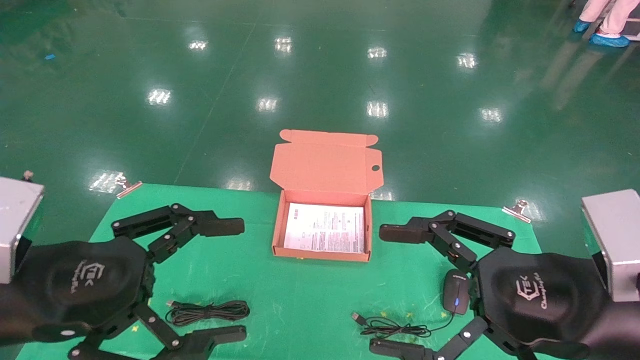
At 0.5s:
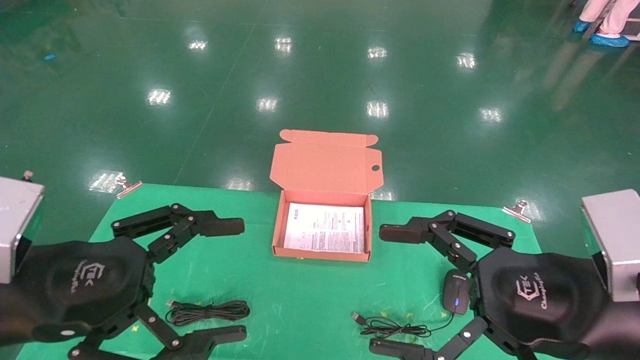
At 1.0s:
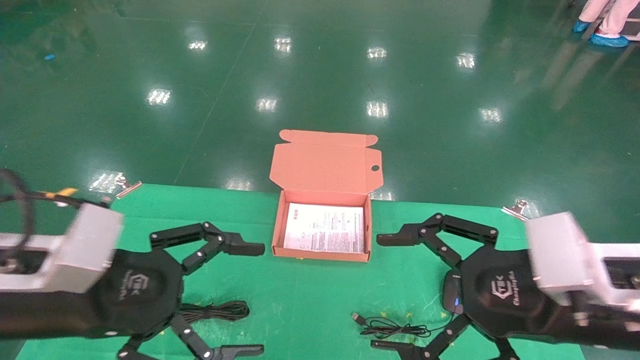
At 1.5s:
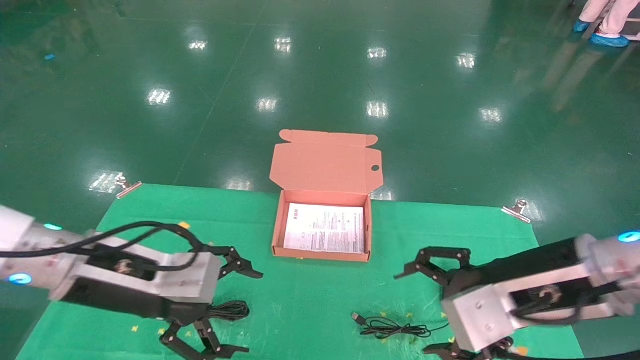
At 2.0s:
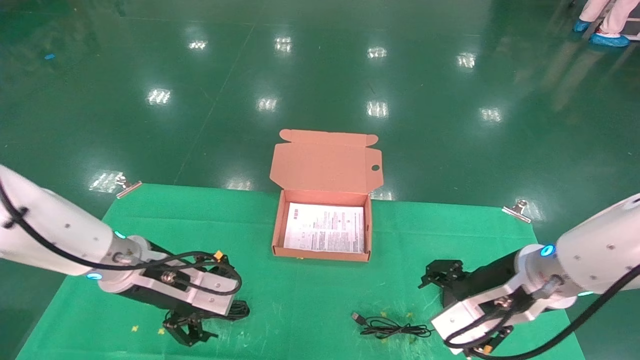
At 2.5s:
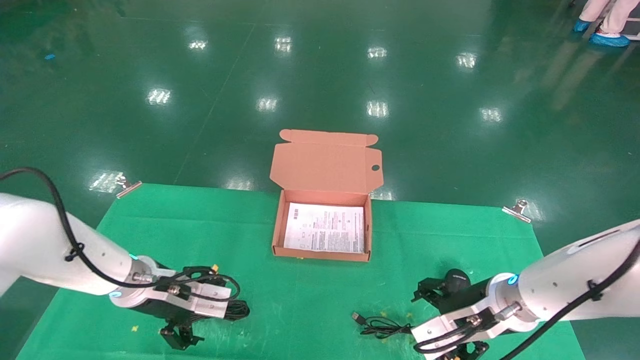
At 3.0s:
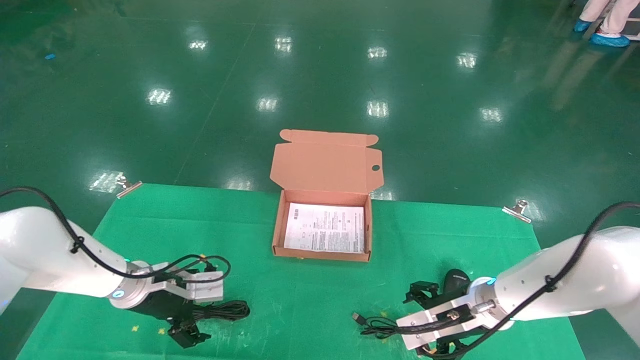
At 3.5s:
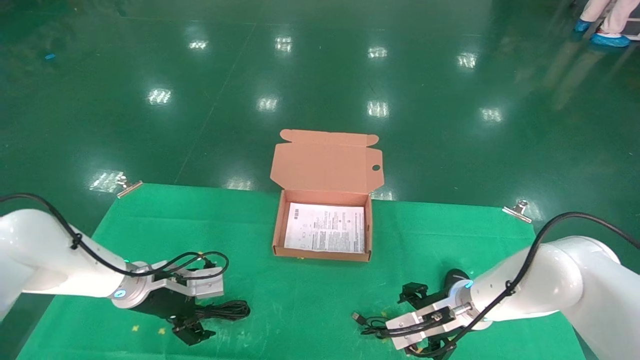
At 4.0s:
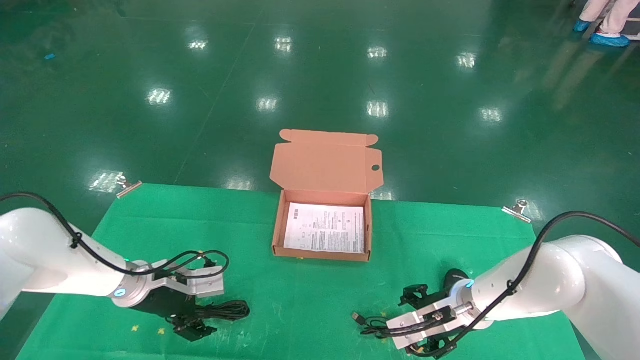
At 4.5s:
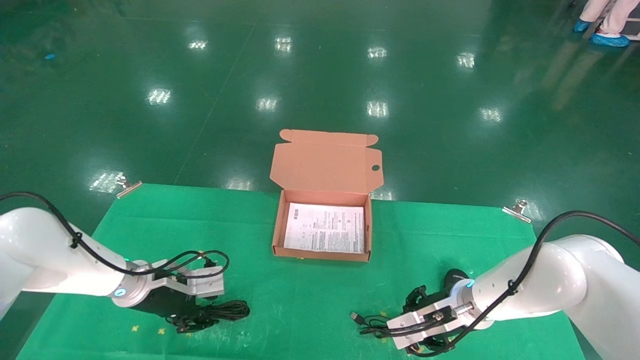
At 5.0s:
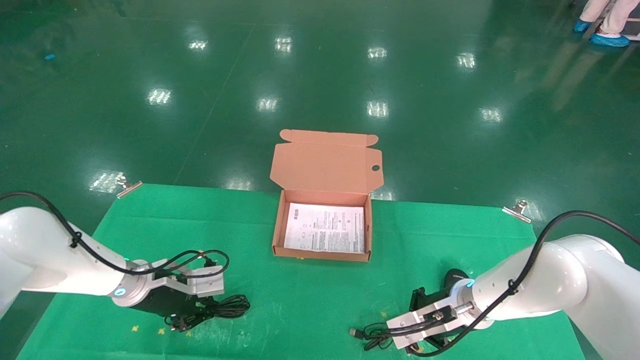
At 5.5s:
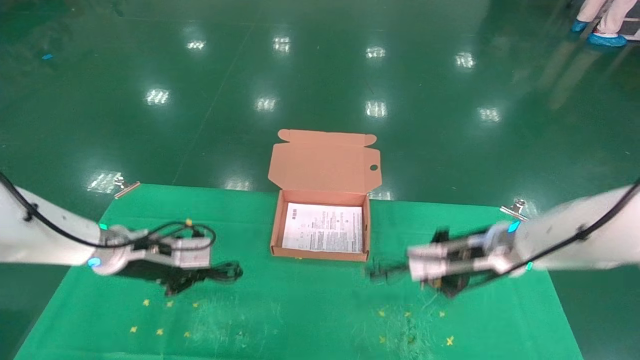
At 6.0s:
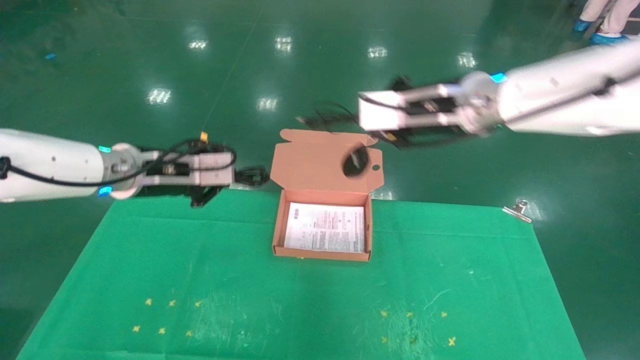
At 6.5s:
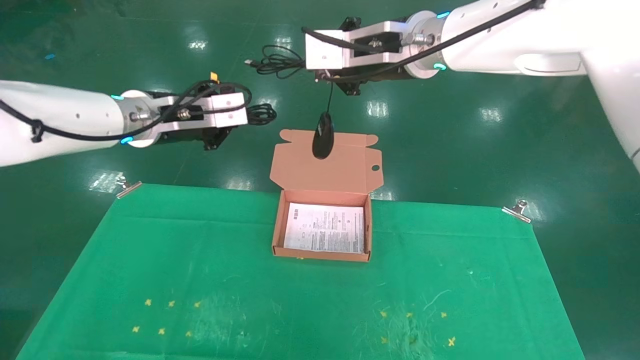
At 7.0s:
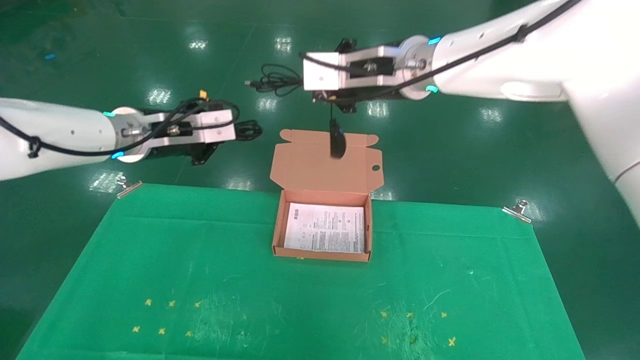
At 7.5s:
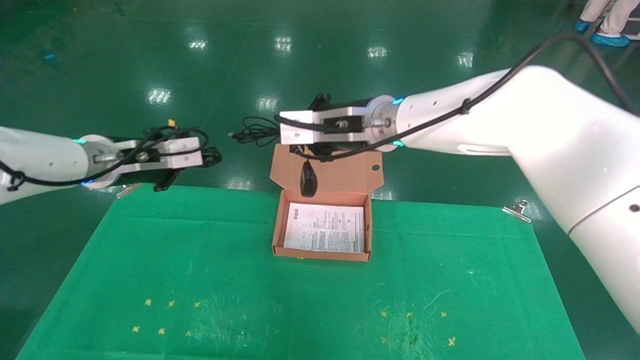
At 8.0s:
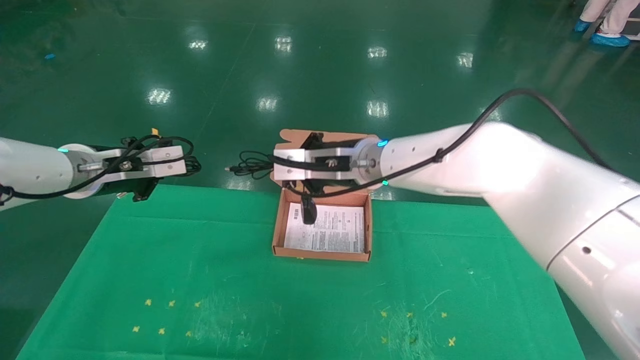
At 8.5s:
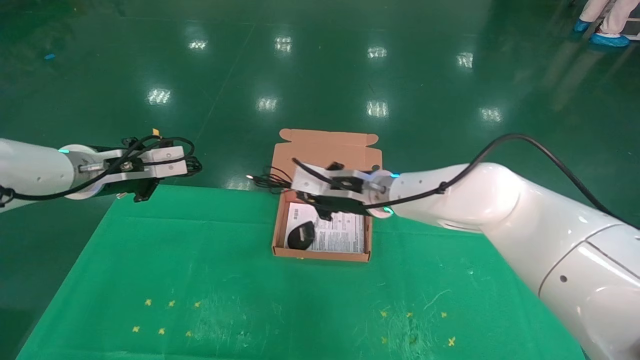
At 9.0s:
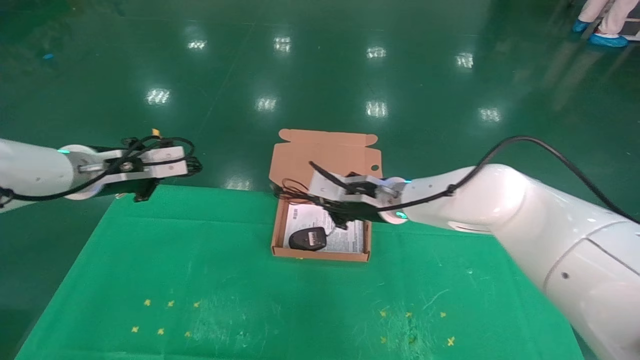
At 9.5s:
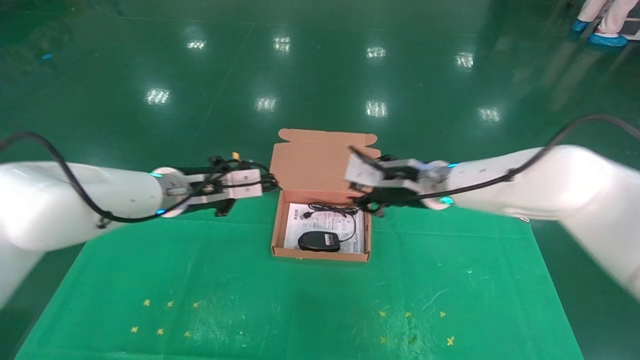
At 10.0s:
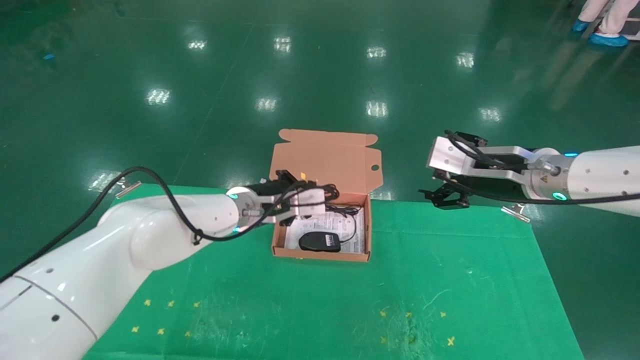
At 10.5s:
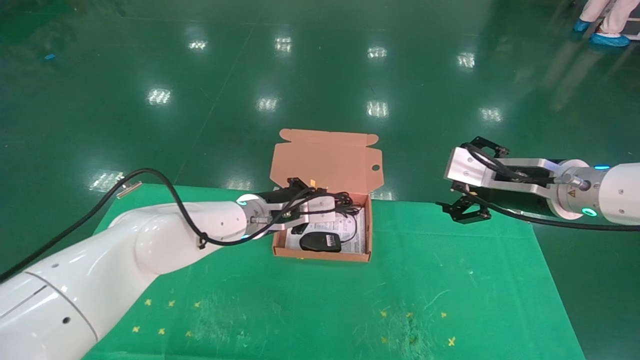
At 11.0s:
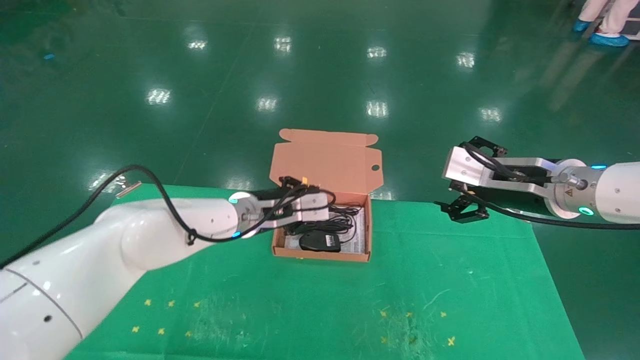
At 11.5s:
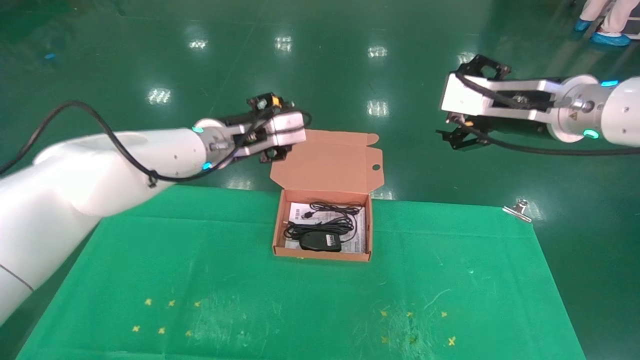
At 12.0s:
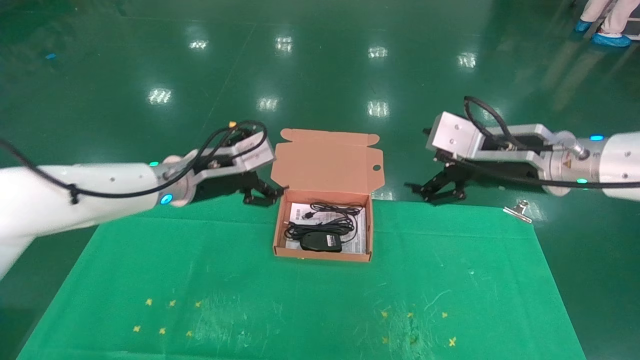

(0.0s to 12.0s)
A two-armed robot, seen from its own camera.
Task of the whole recording: grasp data cable left put into box grasp mouse right put into box.
Step, 1.0s - 5.0s: Grab and pick up both the mouse and power cord from the accessory packaging area at the same time.
Step, 5.5s - 10.5s: Place the mouse and power cord into the box.
0.0s - 2.0s: The two grippers go some 15 cm forward and downward.
2.0s - 4.0s: The right gripper is displaced downward and forward by some 15 cm; the left gripper shifts roughly 15 cm downward, forward and to the left.
4.0s - 6.0s: Both grippers travel together upward, some 25 cm. The right gripper closes, while the left gripper closes.
6.0s - 8.0s: The right gripper is displaced to the left and downward by about 15 cm. The left gripper travels to the left by some 5 cm.
8.0s - 10.0s: The right gripper shifts some 20 cm to the right, and opens its fingers; the left gripper heads to the right and downward, covering about 20 cm.
10.0s - 12.0s: The left gripper travels to the left and upward by approximately 10 cm, and opens up.

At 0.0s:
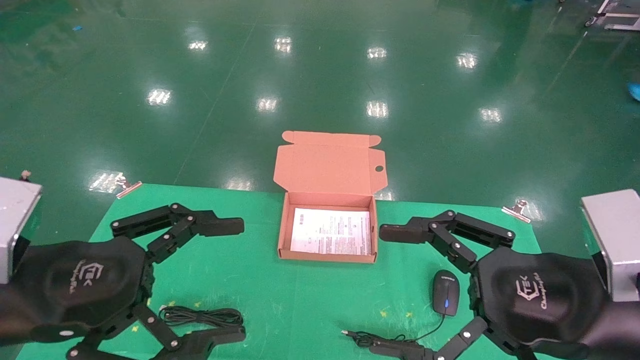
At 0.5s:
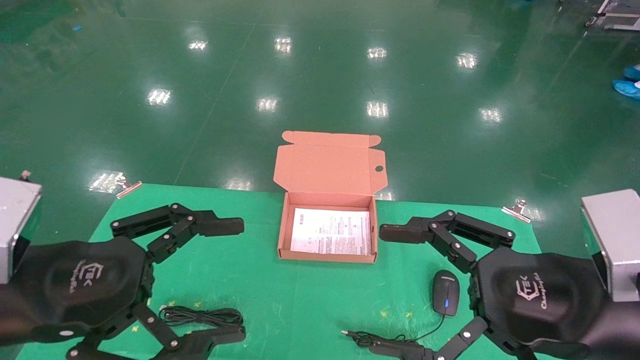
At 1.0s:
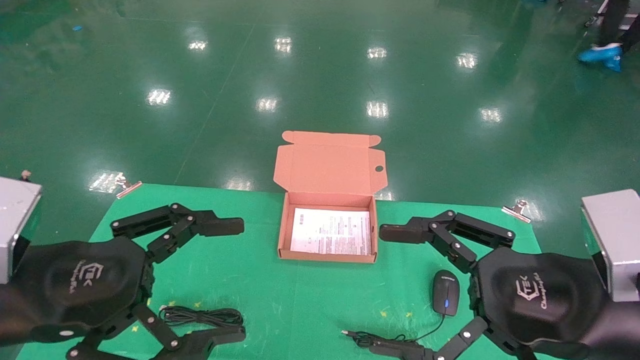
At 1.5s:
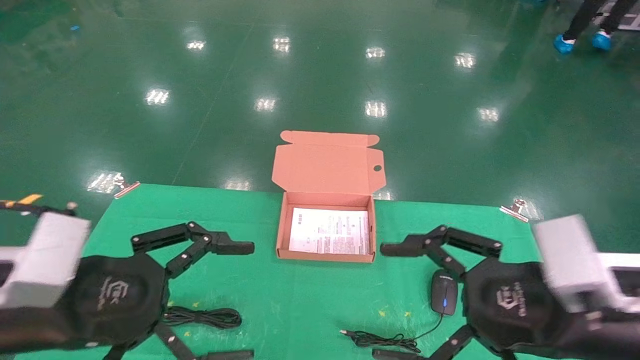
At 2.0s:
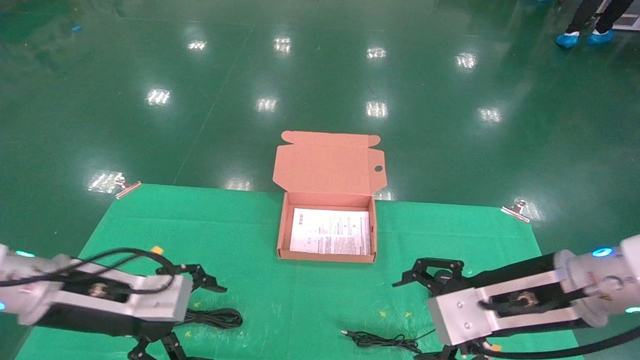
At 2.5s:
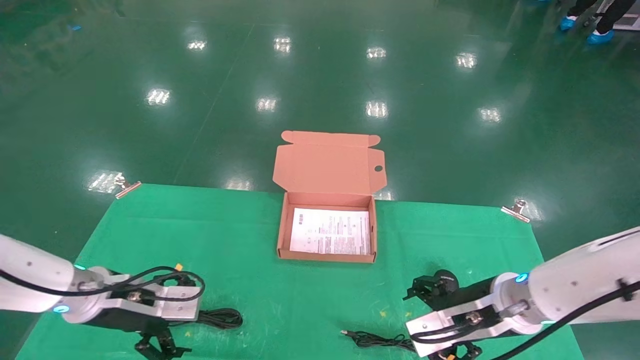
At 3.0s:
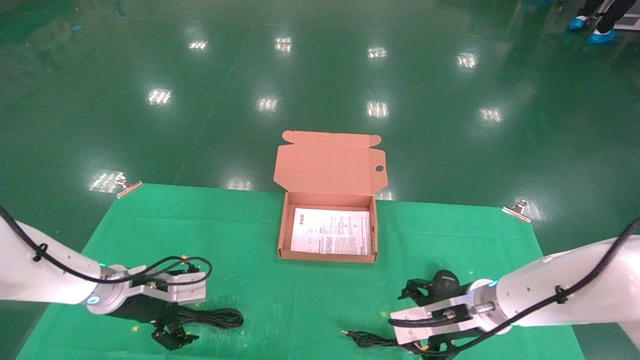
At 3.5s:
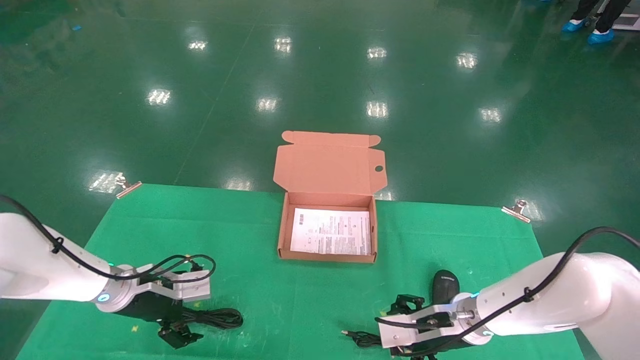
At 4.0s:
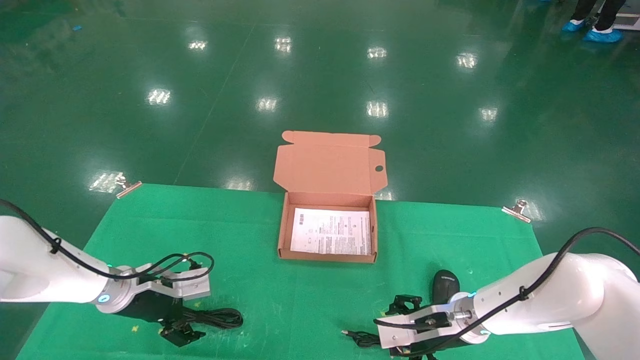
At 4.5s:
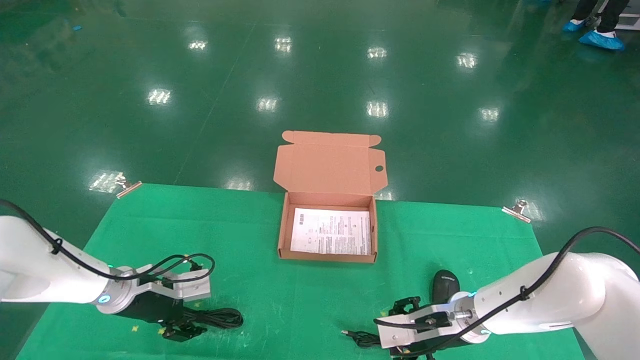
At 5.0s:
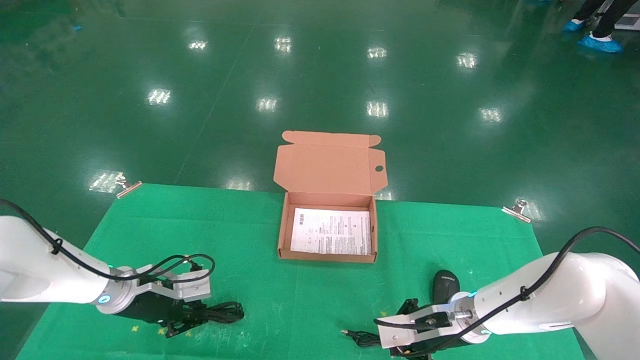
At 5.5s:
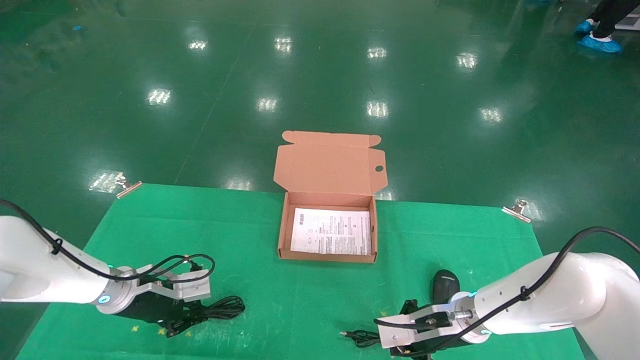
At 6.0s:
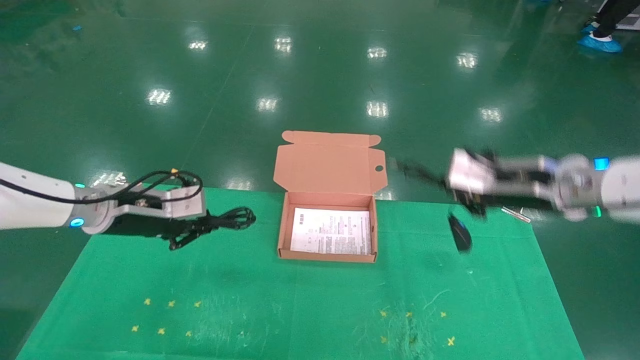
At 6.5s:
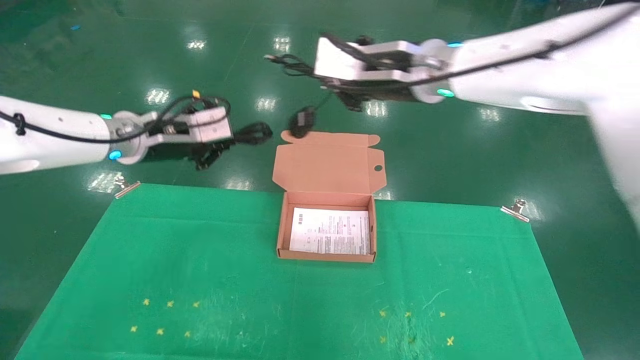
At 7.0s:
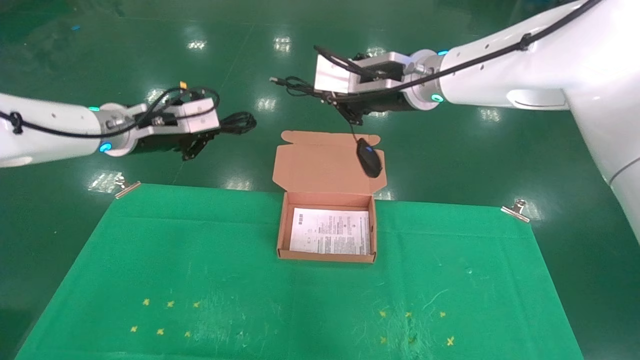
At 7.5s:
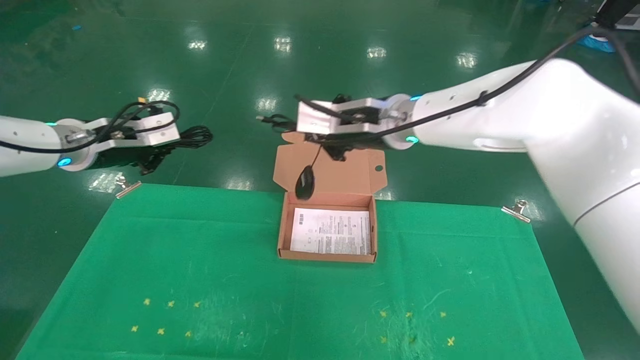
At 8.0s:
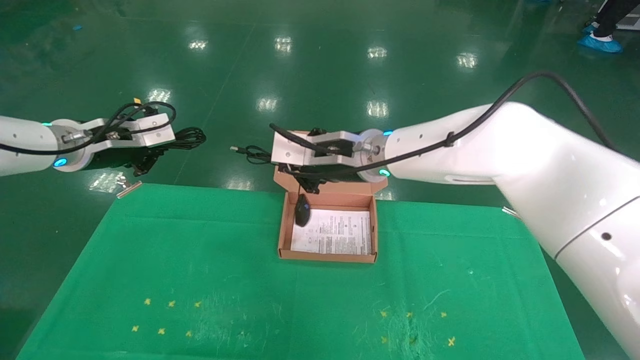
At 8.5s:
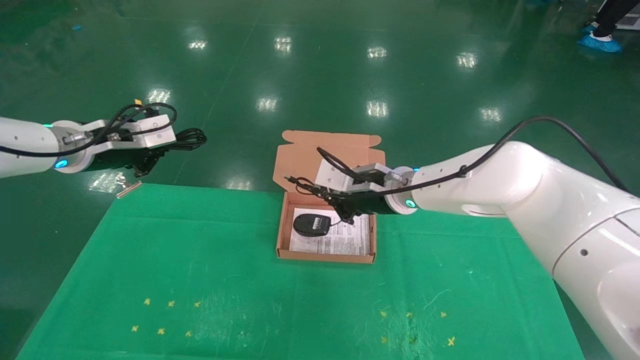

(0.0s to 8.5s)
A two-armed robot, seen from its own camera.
Task of the whole recording: grasp data cable left put into box grasp mouse right put into box.
Step, 1.5s - 5.0s: Grab and pick up both the mouse and power cord from the accessory packaging area at the same time.
0.0s - 2.0s: The left gripper is displaced forward and downward by some 10 cm, while the right gripper goes roughly 10 cm forward.
2.0s - 4.0s: The right gripper is displaced downward and forward by some 20 cm. The left gripper goes approximately 15 cm forward and downward.
4.0s - 6.5s: The grippers both shift upward by roughly 30 cm. The left gripper closes its fingers. Meanwhile the right gripper closes.
6.5s - 8.5s: The right gripper moves downward, some 15 cm; the left gripper moves to the left, roughly 10 cm.
